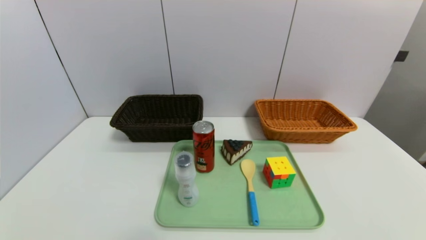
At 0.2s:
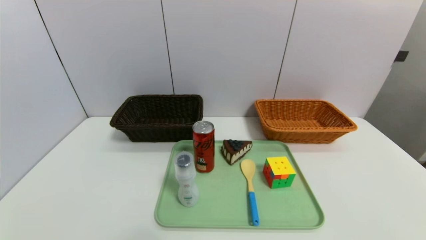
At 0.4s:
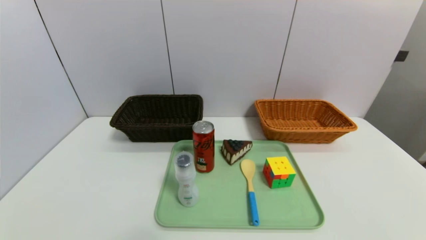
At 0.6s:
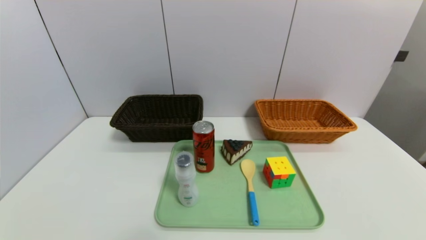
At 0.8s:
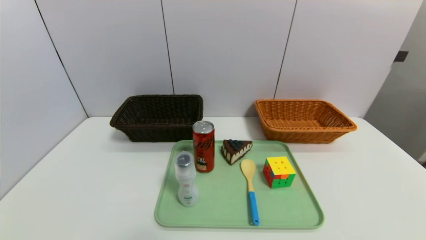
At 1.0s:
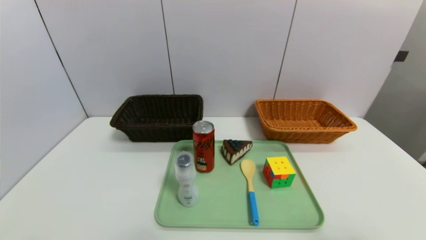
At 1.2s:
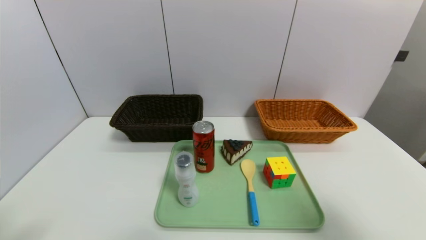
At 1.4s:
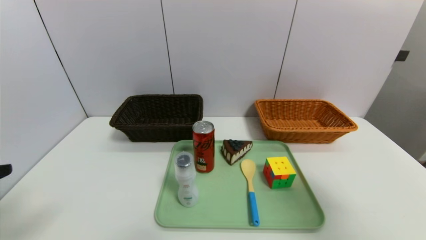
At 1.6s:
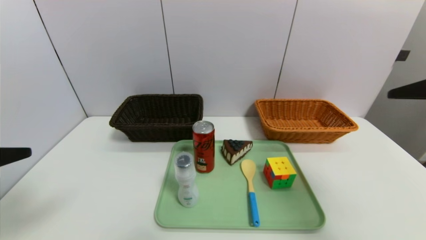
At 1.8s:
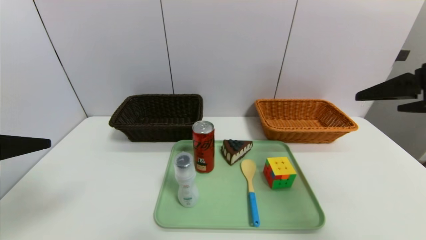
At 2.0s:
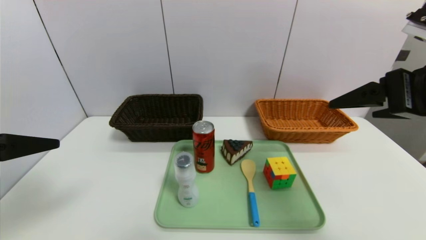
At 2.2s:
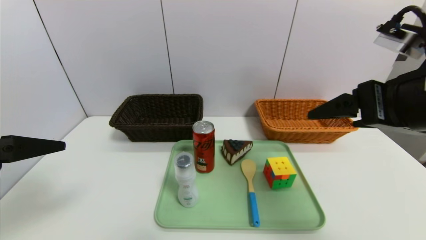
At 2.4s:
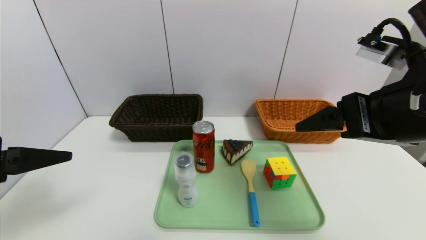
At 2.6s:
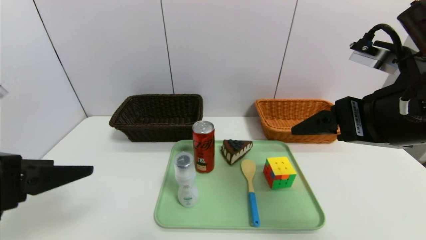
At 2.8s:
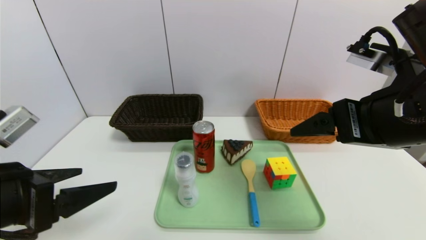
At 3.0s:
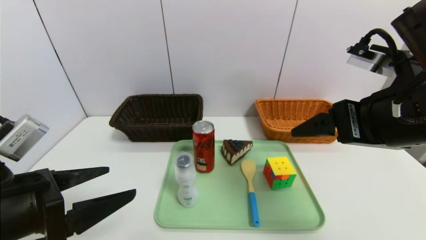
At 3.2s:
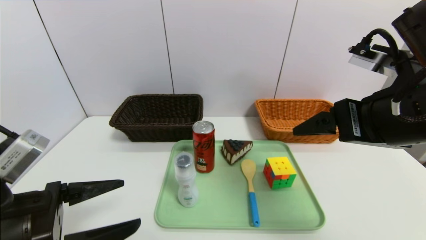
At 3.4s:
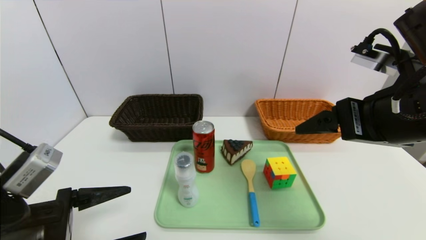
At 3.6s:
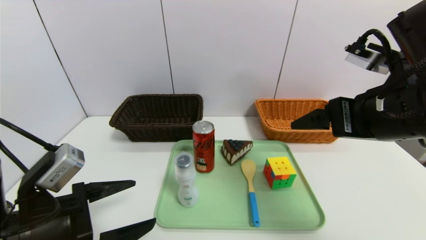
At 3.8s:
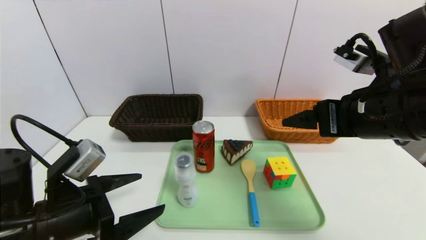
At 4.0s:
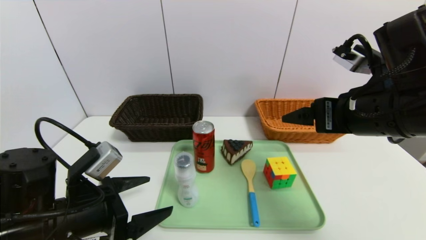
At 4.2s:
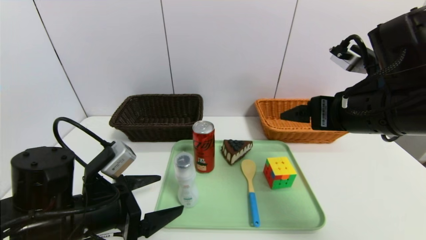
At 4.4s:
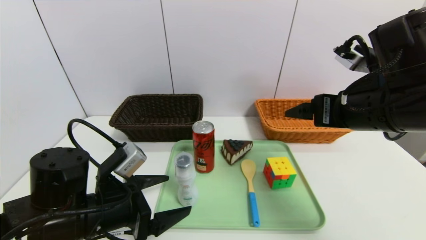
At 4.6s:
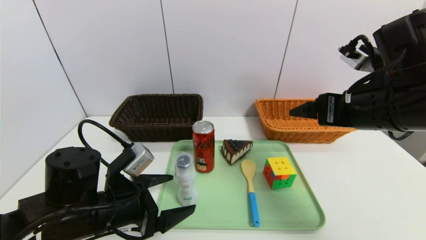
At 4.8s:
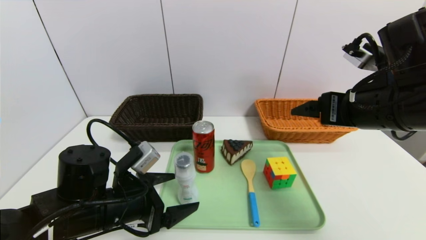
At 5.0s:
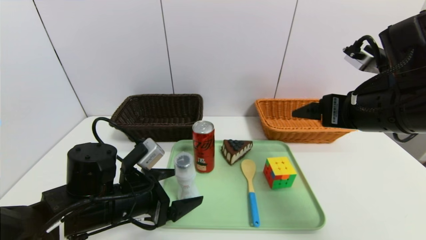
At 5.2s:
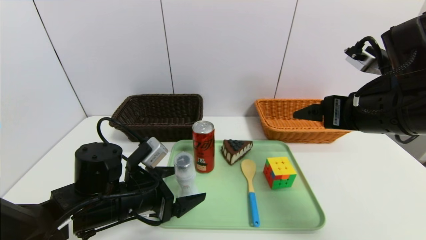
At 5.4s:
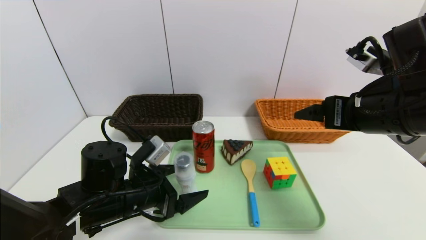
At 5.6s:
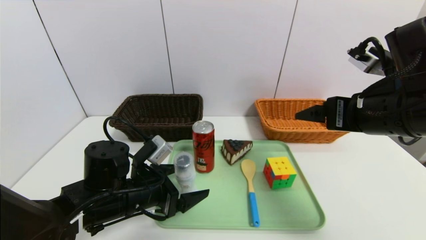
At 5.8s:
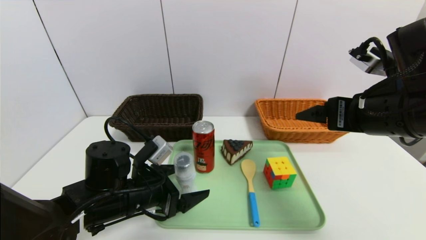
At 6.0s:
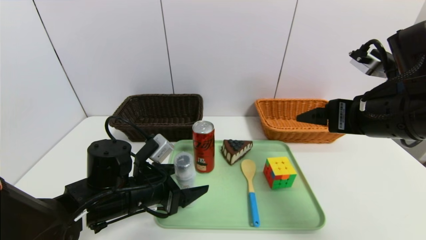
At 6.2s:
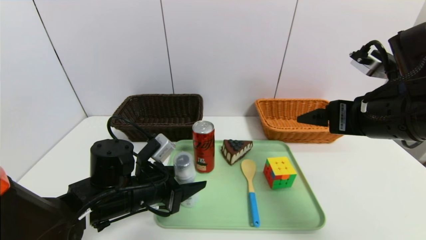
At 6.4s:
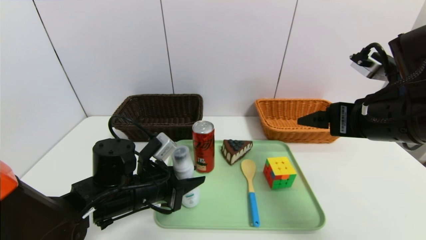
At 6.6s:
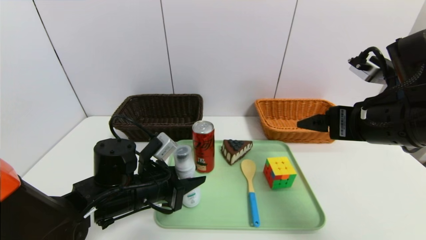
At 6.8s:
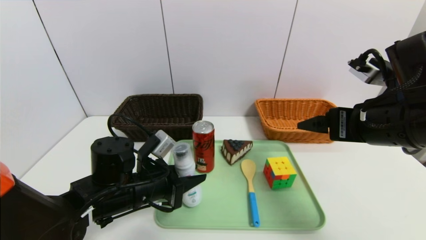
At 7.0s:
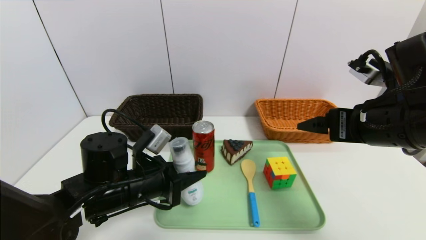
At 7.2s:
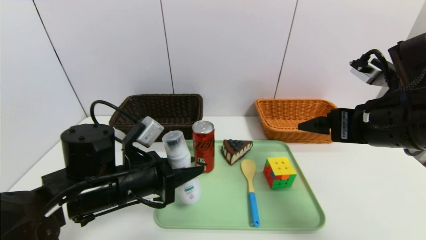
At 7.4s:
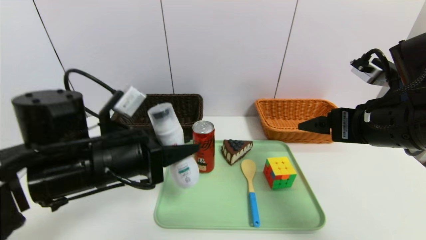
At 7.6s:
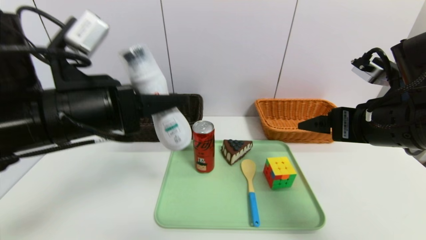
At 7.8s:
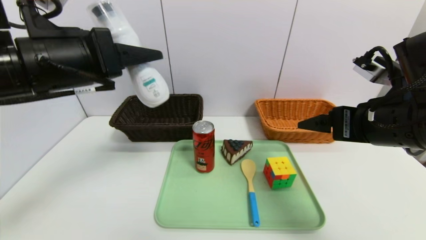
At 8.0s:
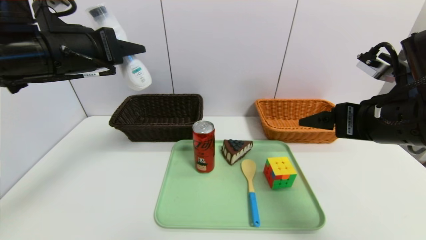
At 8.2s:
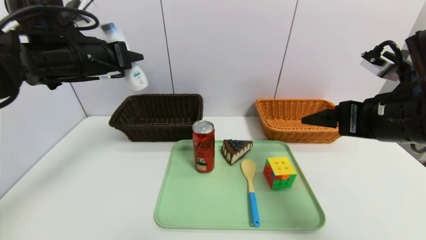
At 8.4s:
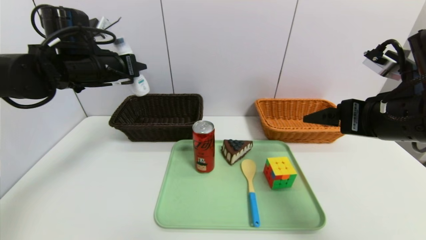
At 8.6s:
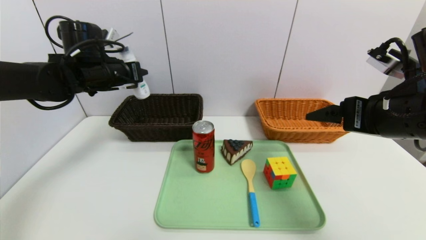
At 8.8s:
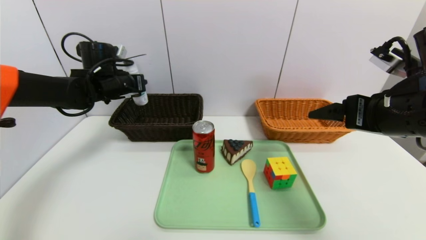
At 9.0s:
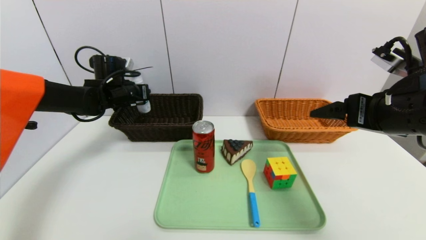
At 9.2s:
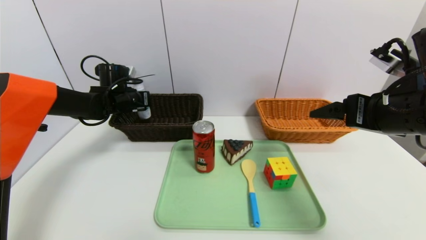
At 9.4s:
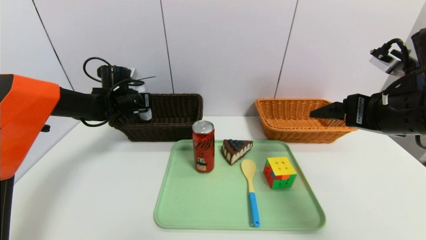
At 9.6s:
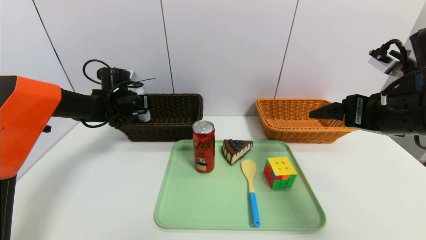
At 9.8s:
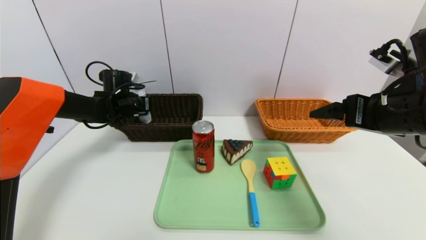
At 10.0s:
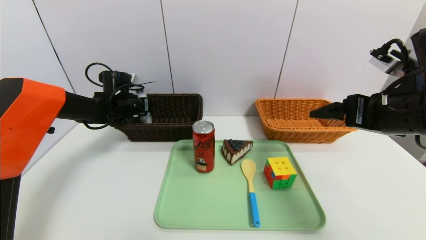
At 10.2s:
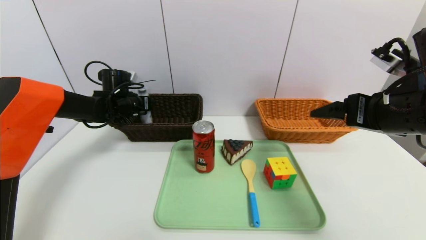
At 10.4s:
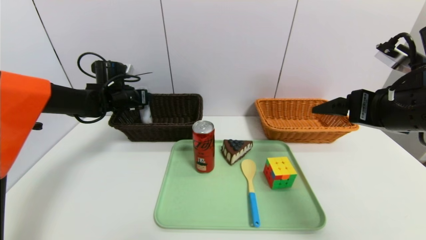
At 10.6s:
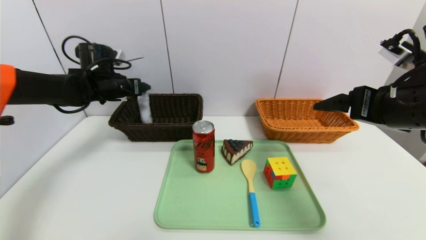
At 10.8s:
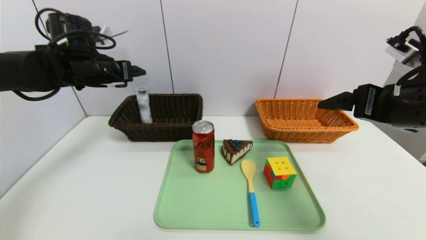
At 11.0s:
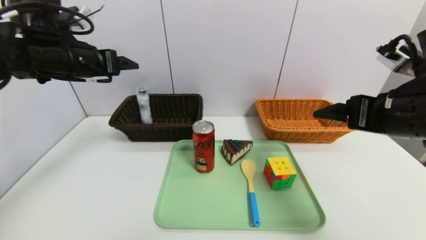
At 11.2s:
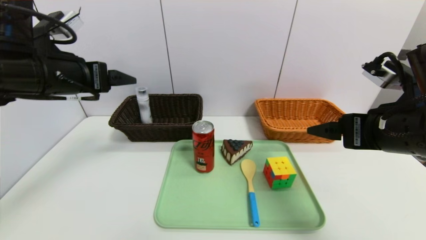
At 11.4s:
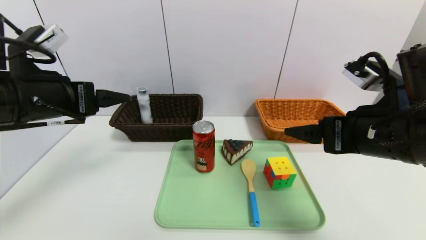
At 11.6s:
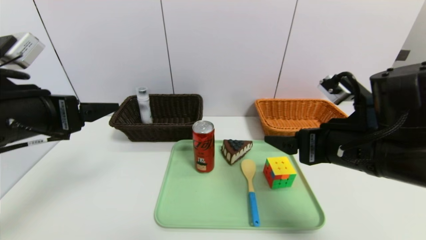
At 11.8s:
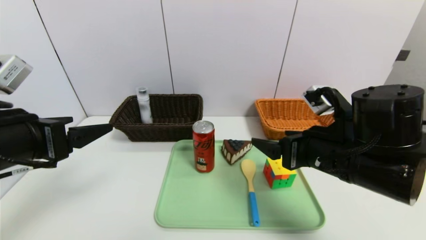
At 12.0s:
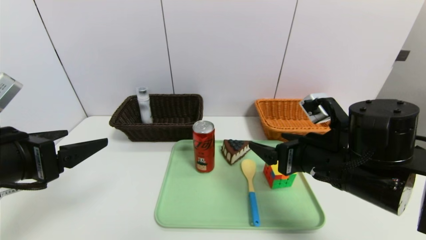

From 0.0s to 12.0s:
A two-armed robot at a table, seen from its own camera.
Task of the whole recording: place the food in the right basket with the right gripper, and place the non food items in the left basket with the left gripper.
Step, from 0.0s to 10.6s: Grasp the washing liquid and put it in the left basket.
From 0.0s to 1.6s: Both grippers travel together upward and forward, about 30 cm.
From 1.6s to 3.0s: The right gripper travels to the left by roughly 10 cm, while the left gripper travels downward and to the right by some 10 cm.
From 3.0s to 4.4s: The left gripper is displaced downward, forward and to the right by roughly 10 cm, while the right gripper moves about 5 cm.
From 4.4s to 6.0s: The left gripper ends up some 5 cm from where it was.
From 6.0s to 7.6s: The left gripper heads upward, covering approximately 15 cm, and closes up.
From 7.6s to 9.0s: The left gripper moves forward, approximately 25 cm.
From 9.0s to 10.4s: The left gripper opens its fingers.
From 10.4s to 12.0s: The left gripper goes approximately 30 cm backward. Meanwhile the right gripper is displaced downward and to the left by roughly 15 cm.

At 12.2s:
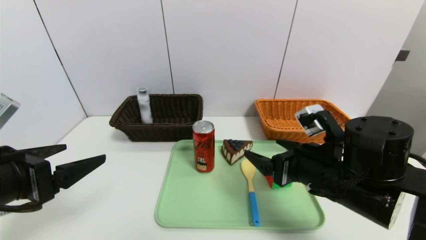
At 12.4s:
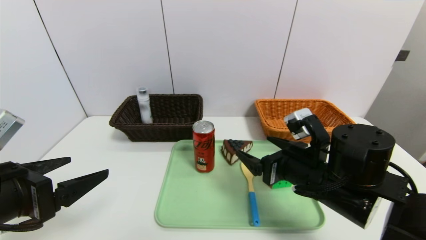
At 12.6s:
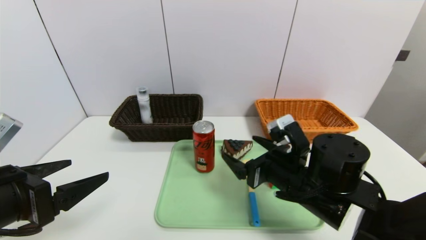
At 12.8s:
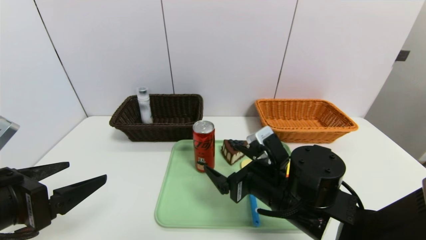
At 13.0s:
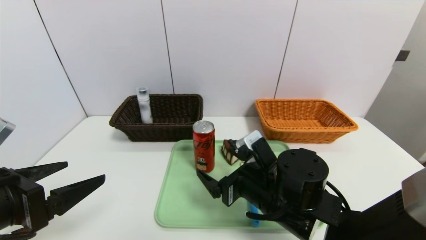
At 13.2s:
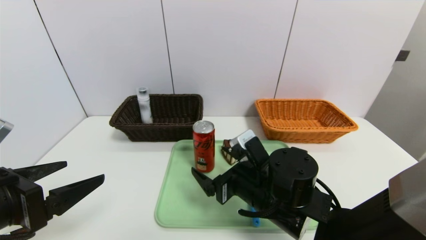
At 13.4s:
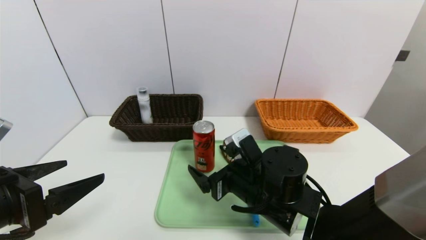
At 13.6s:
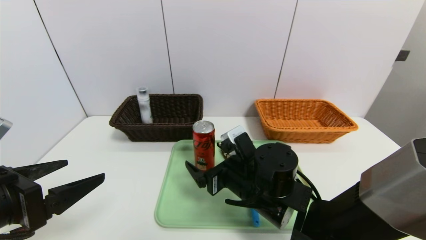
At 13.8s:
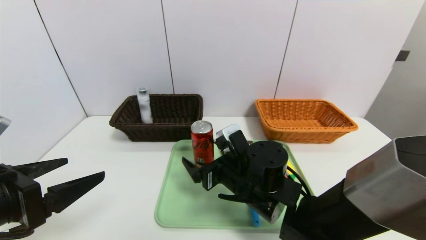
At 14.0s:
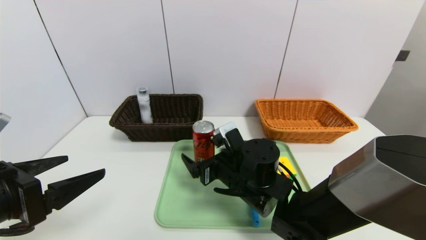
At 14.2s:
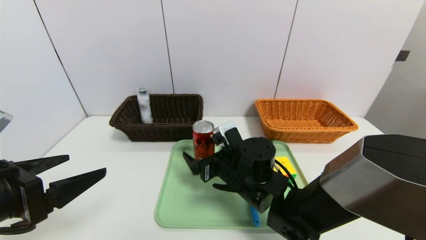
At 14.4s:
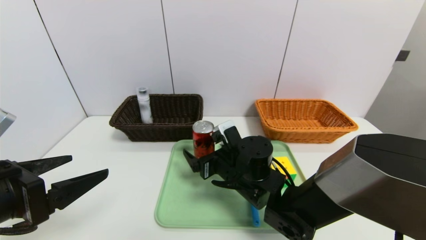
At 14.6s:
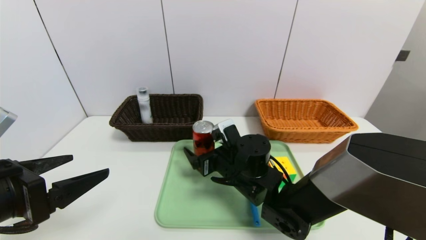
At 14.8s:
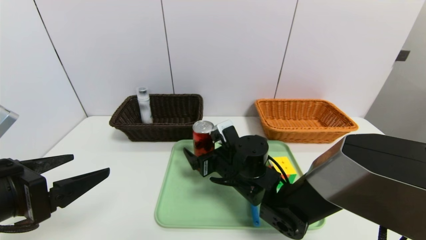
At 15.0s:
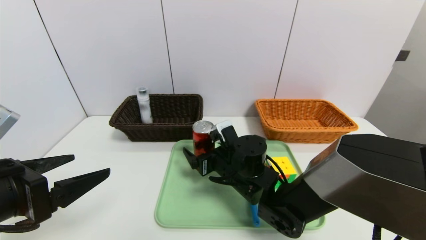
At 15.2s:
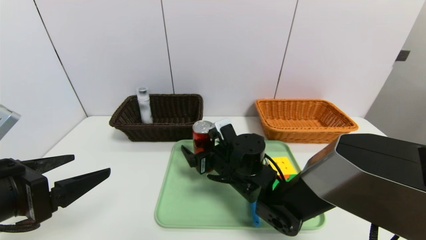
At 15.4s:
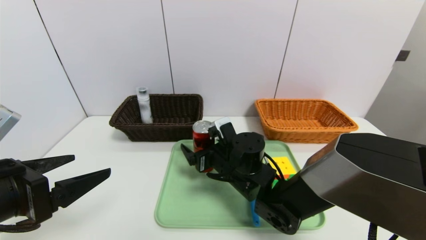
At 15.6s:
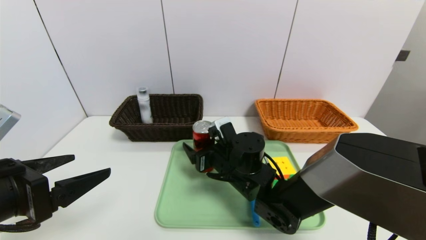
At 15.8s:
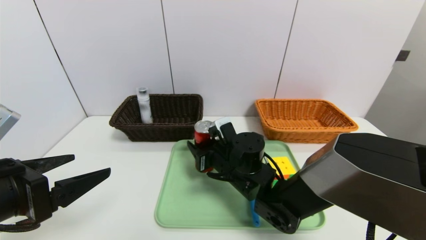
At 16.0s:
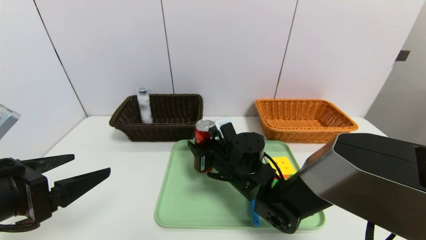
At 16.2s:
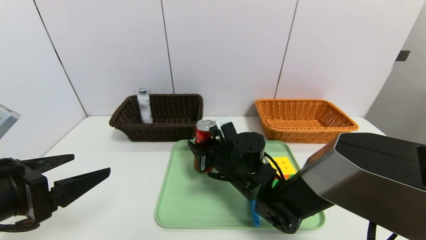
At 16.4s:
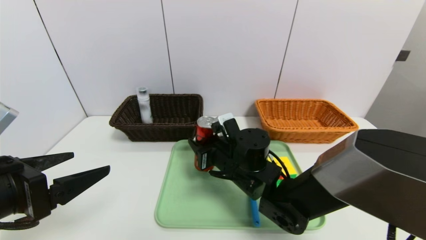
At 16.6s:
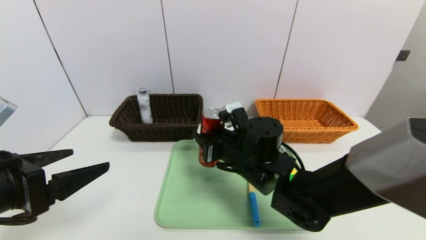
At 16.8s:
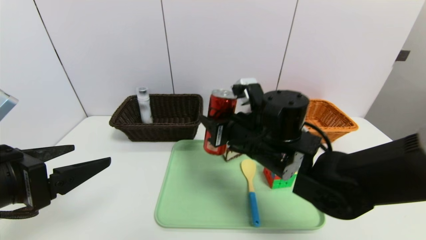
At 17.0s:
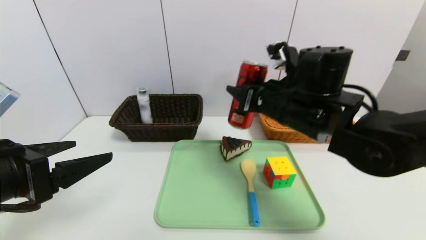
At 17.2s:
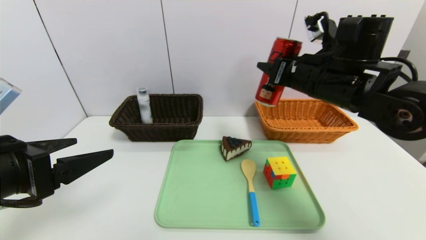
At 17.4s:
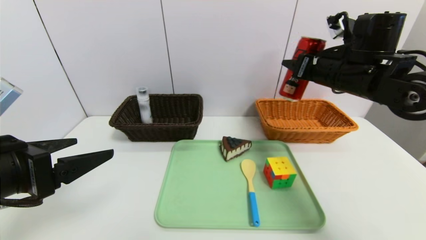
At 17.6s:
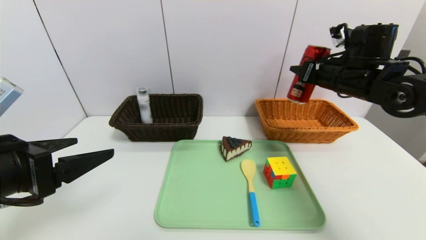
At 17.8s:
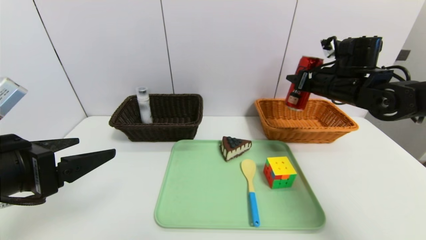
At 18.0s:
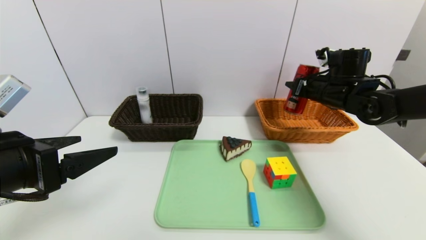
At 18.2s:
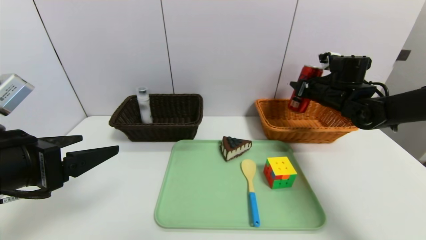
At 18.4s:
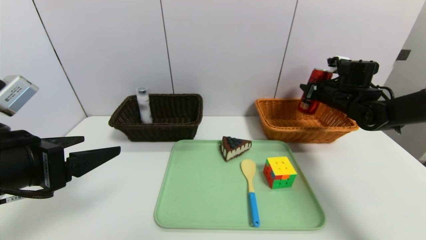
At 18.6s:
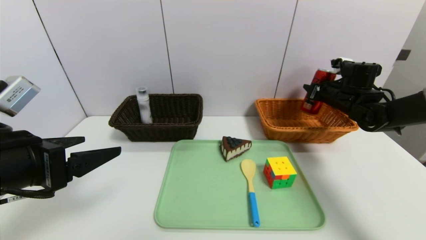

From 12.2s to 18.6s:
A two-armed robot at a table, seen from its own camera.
Task of the whole recording: place the food in the right basket with the right gripper, and place the non food items in the left basket with the left gripper.
From 12.2s to 13.8s: The right gripper shifts approximately 15 cm to the left and downward.
From 13.8s to 15.4s: The right gripper changes place by roughly 5 cm.
From 15.4s to 17.0s: The right gripper heads upward and to the right, covering roughly 20 cm, and closes up.
From 17.0s to 18.6s: The right gripper shifts approximately 25 cm to the right and forward.
